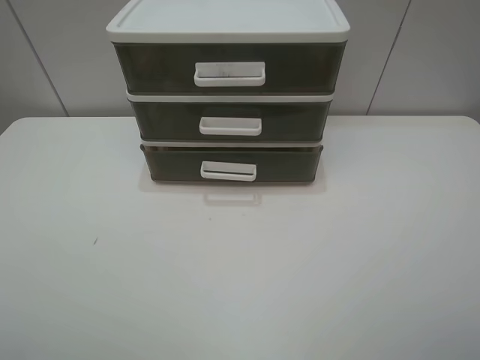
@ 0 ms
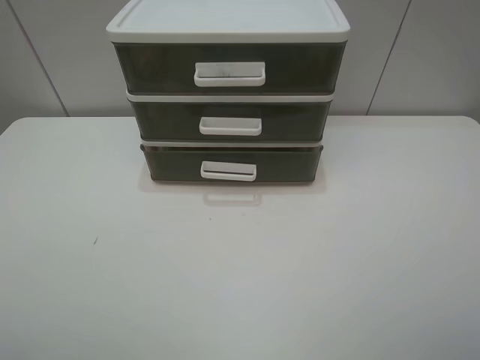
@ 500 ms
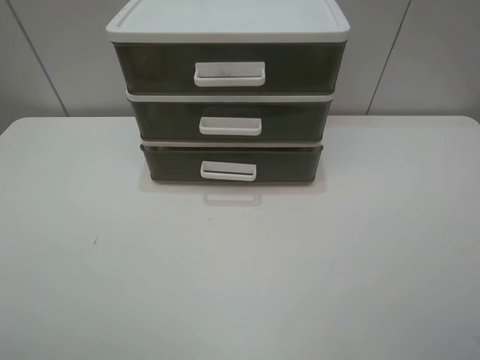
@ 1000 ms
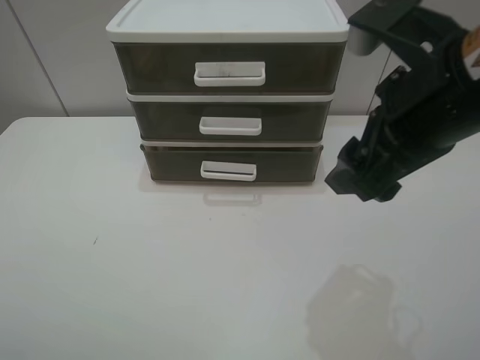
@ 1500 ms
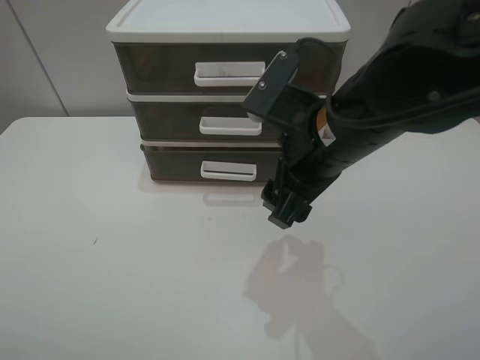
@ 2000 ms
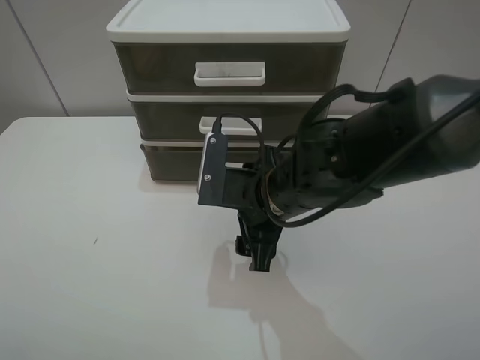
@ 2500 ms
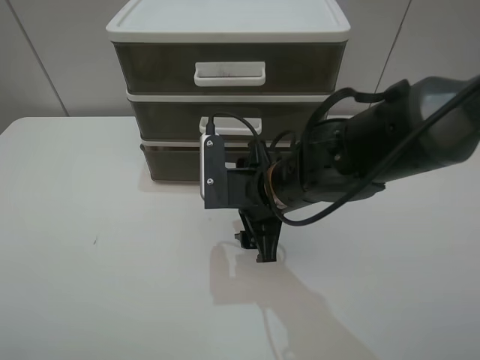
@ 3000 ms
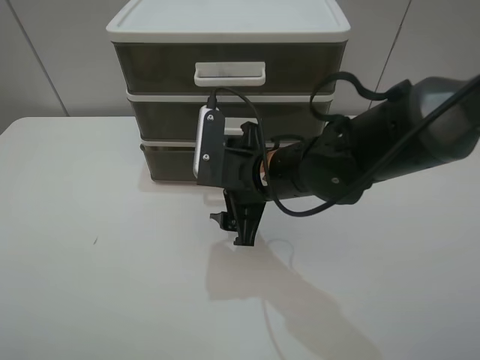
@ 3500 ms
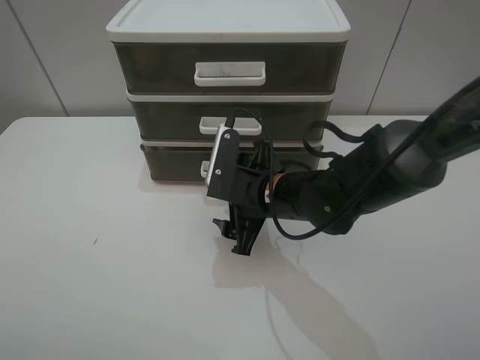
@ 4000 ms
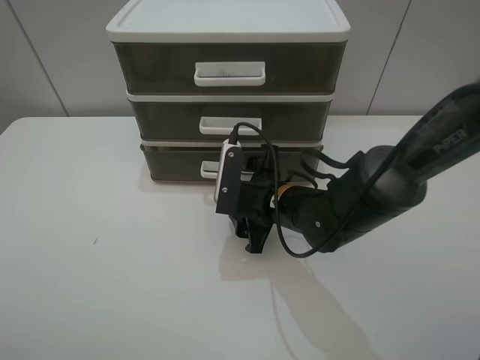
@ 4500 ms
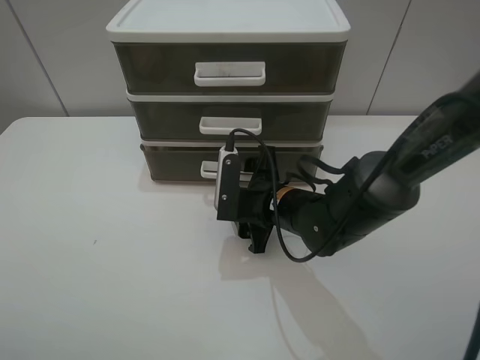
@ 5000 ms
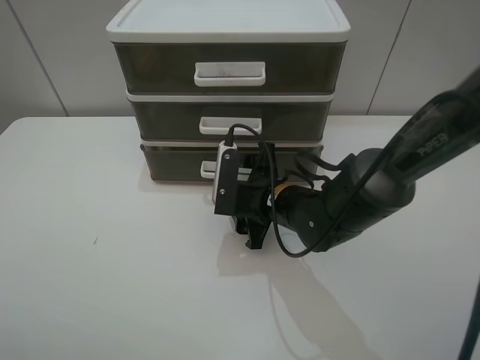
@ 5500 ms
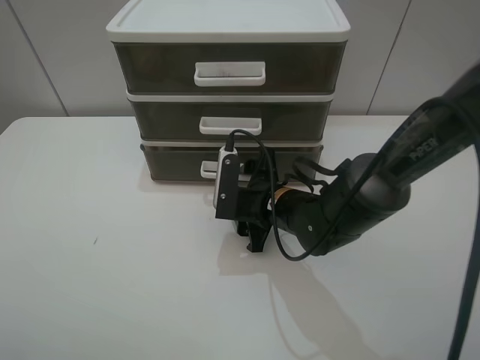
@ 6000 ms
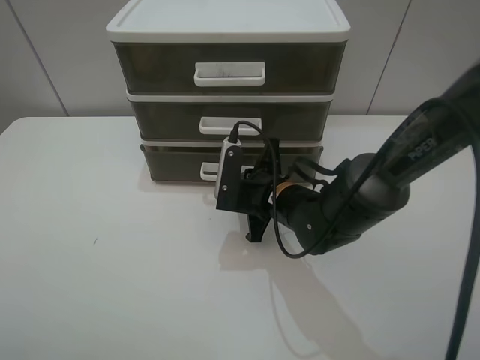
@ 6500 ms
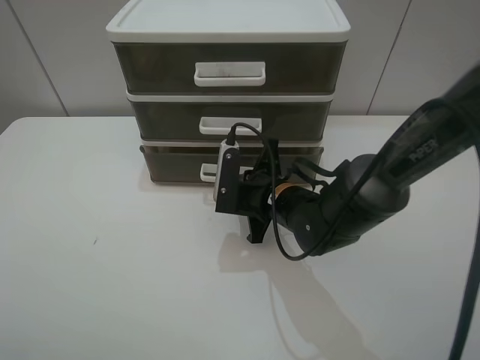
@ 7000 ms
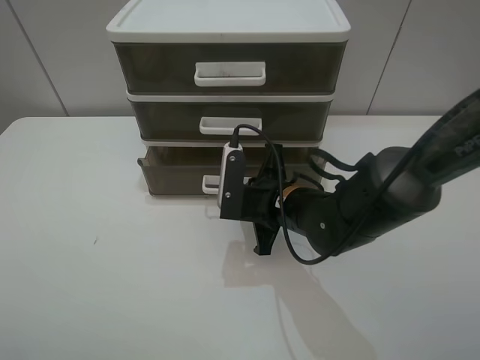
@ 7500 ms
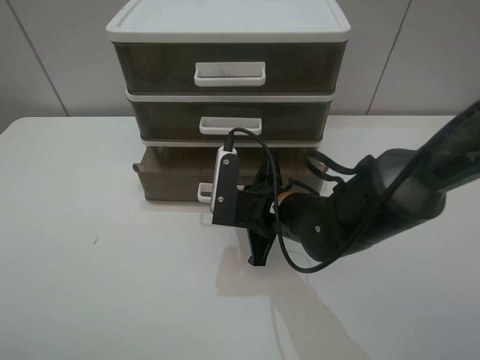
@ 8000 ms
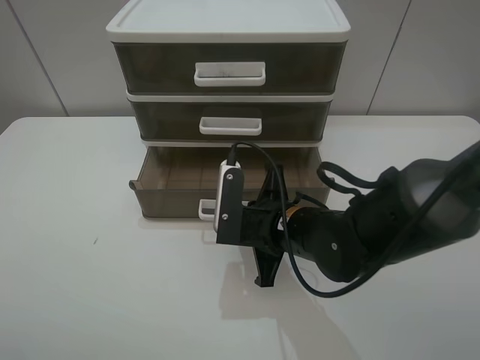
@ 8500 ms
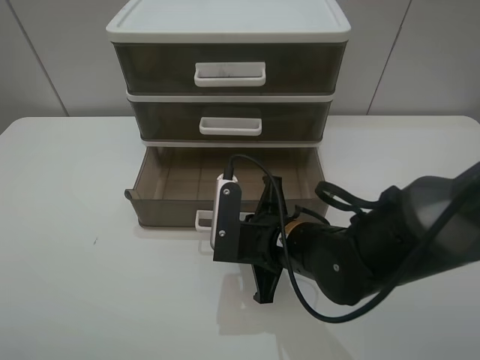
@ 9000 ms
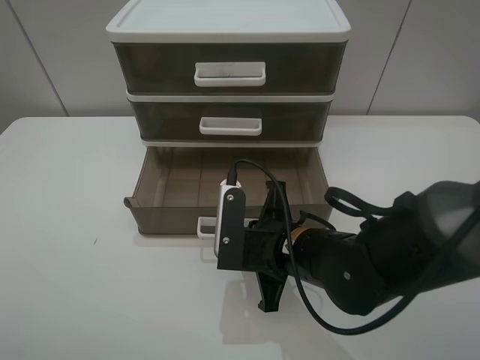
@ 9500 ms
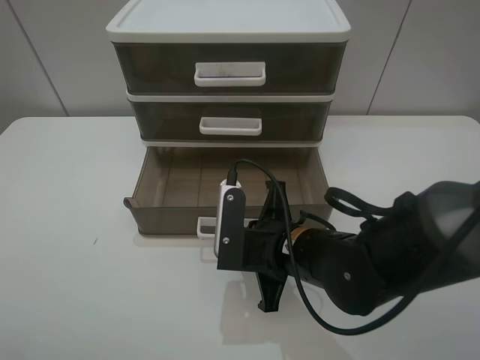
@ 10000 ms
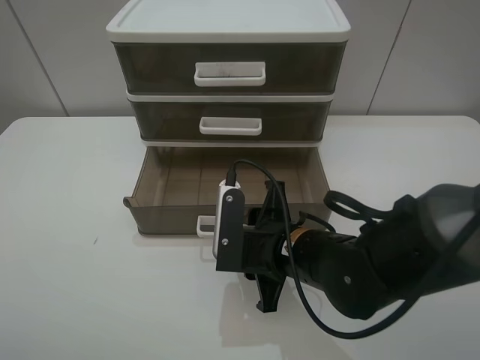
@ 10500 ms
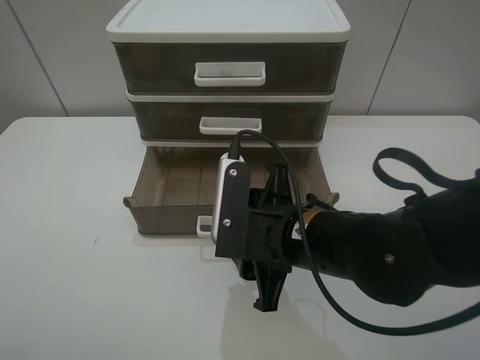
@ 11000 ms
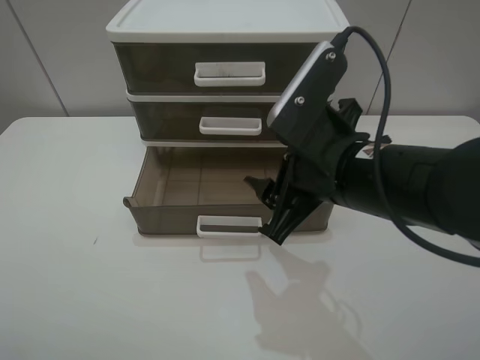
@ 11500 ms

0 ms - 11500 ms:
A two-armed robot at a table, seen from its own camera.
Task of the whole recording: open the bottom drawer.
Step, 0 ms - 6500 ms: Grab the bottom drawer with the right gripper.
Step, 7000 ms - 10500 ms: Pull open the drawer with the right gripper.
0 ms - 2000 ms: The right gripper heads forward and to the left, covering approximately 30 cm.
2000 ms - 4000 ms: The right gripper moves downward, some 10 cm.
4000 ms - 6000 ms: The grippers stay close to where they were, moving slightly.
6000 ms - 7500 ms: The right gripper closes up.
7500 ms - 9500 ms: The right gripper shifts roughly 5 cm backward.
9500 ms - 11500 ms: The right gripper heads upward, covering some 10 cm, and opens.

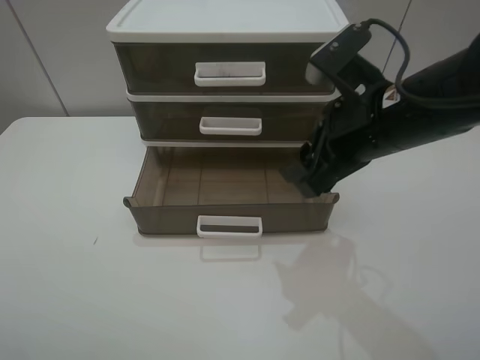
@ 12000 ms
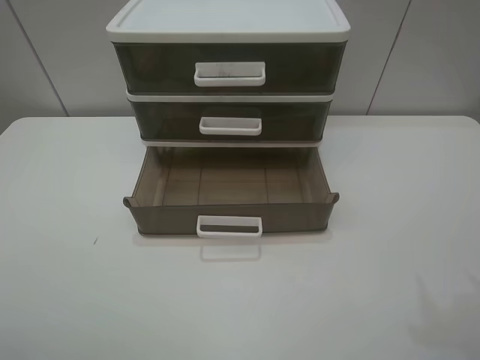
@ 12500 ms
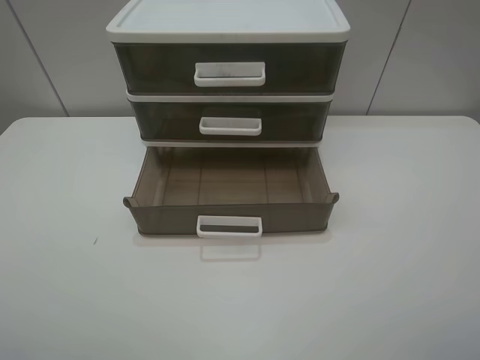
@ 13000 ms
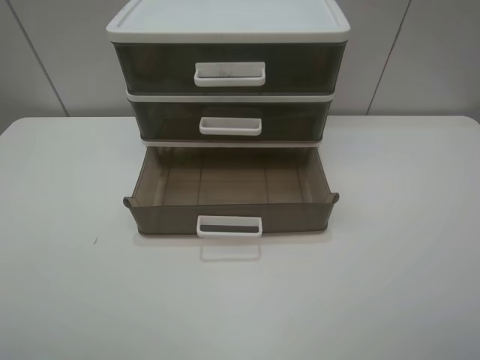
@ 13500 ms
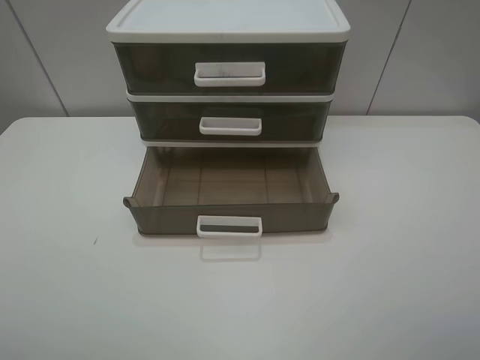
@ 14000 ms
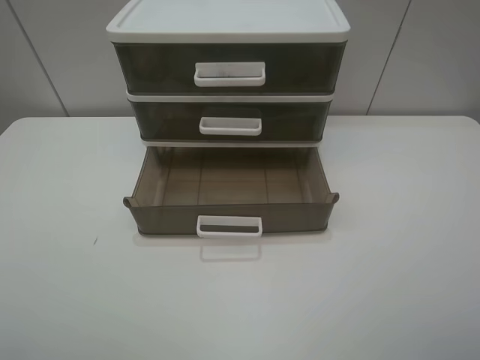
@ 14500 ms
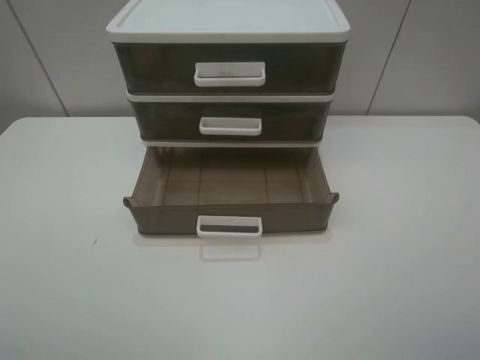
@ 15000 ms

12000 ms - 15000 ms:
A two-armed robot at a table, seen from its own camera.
Task of the whole recording: open the bottom drawer.
12000 ms - 13500 ms: The right gripper heads backward and to the right, covering approximately 25 cm.
